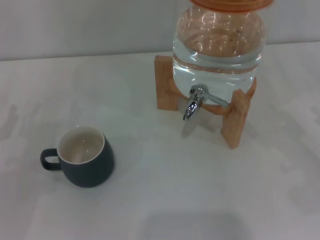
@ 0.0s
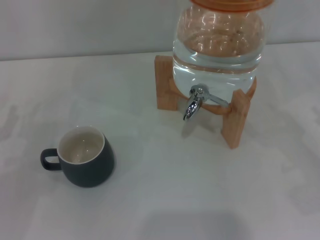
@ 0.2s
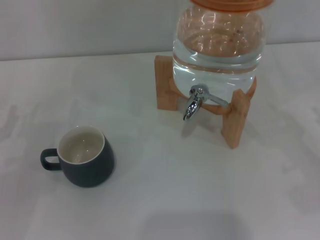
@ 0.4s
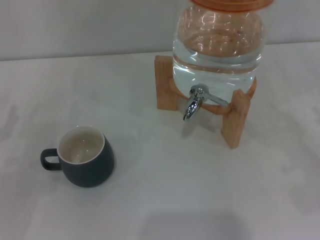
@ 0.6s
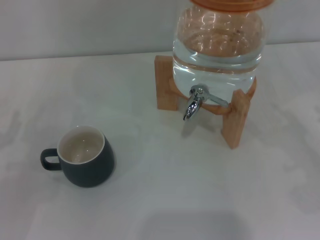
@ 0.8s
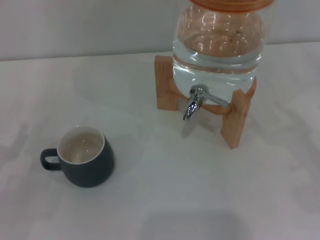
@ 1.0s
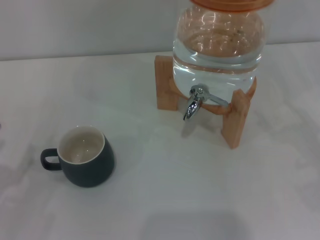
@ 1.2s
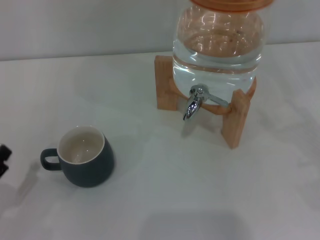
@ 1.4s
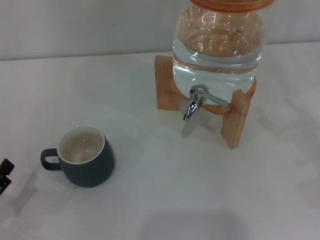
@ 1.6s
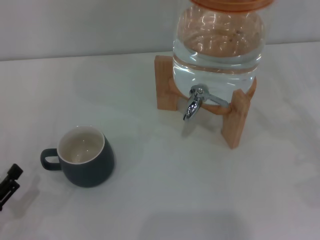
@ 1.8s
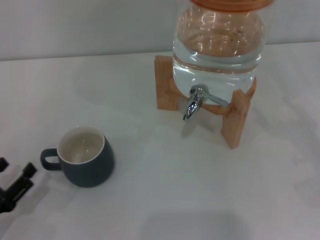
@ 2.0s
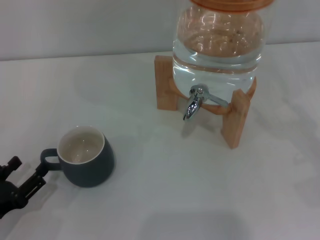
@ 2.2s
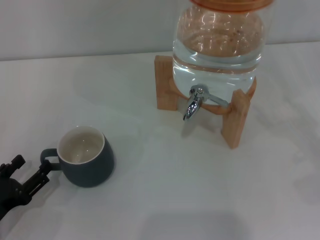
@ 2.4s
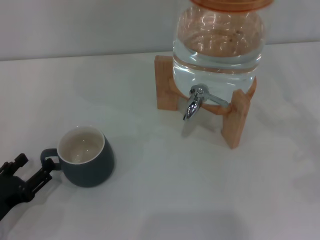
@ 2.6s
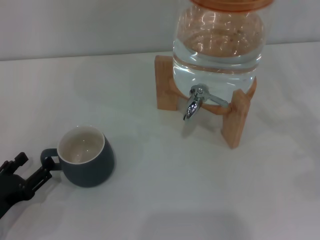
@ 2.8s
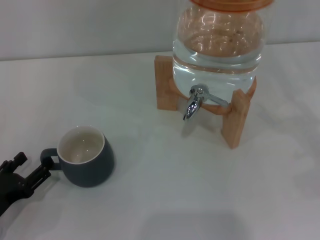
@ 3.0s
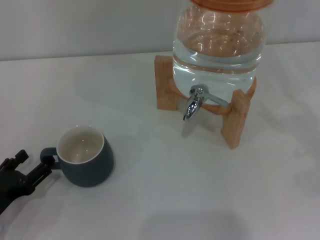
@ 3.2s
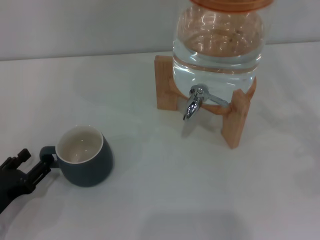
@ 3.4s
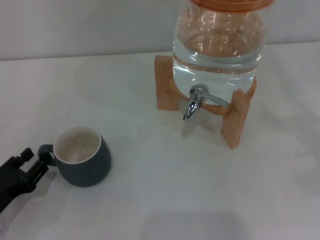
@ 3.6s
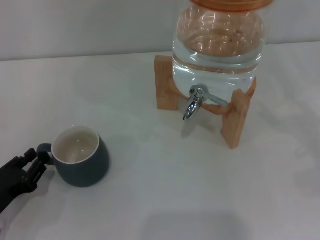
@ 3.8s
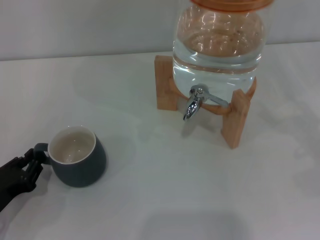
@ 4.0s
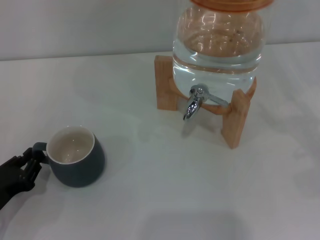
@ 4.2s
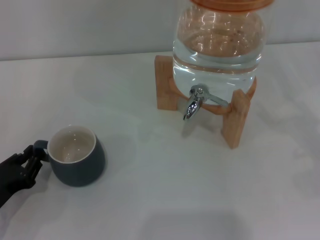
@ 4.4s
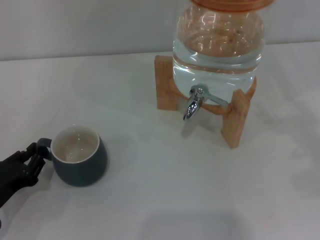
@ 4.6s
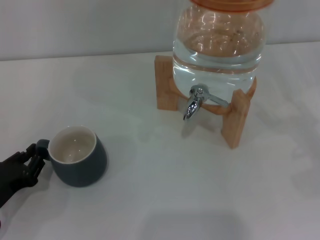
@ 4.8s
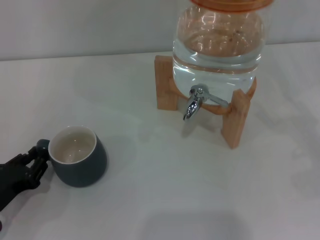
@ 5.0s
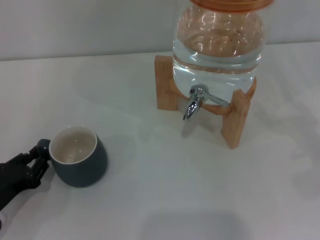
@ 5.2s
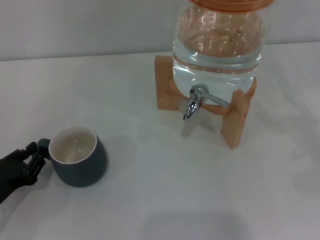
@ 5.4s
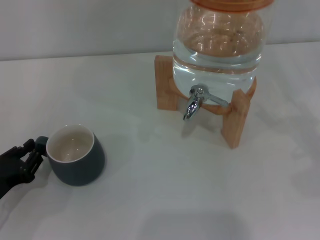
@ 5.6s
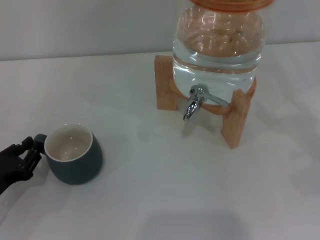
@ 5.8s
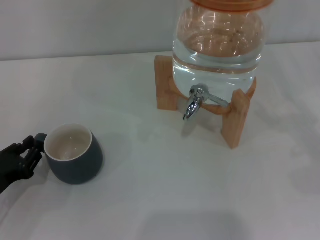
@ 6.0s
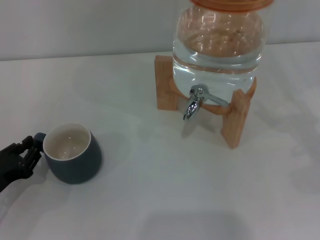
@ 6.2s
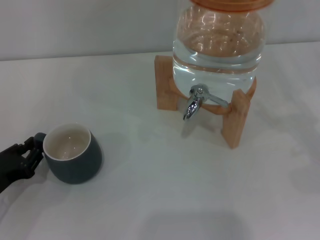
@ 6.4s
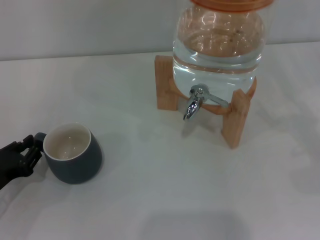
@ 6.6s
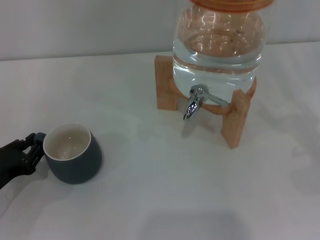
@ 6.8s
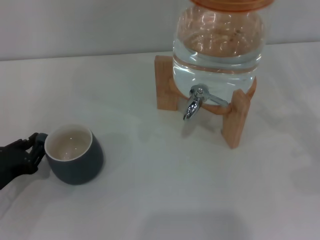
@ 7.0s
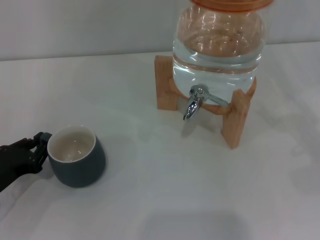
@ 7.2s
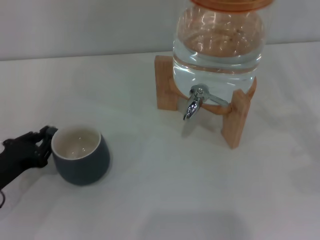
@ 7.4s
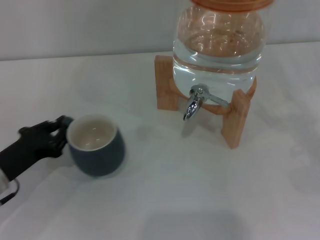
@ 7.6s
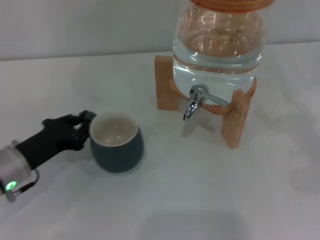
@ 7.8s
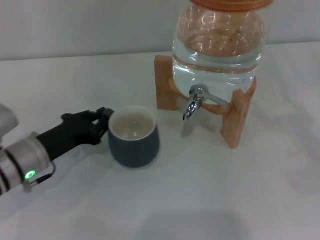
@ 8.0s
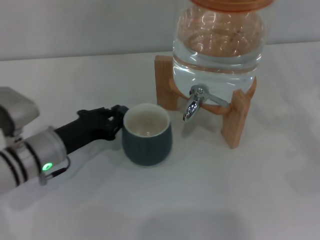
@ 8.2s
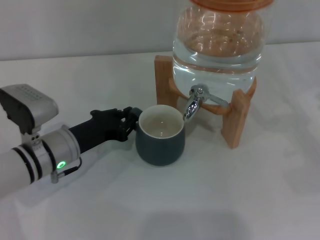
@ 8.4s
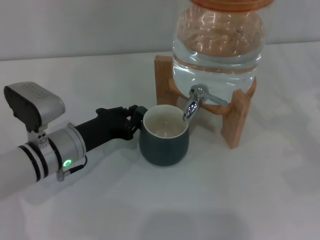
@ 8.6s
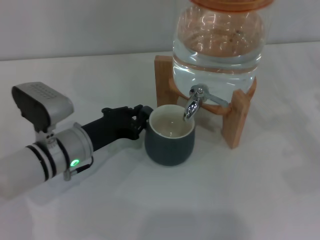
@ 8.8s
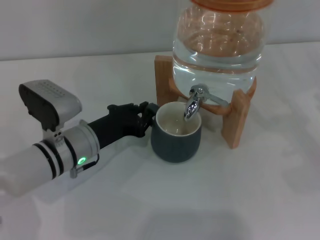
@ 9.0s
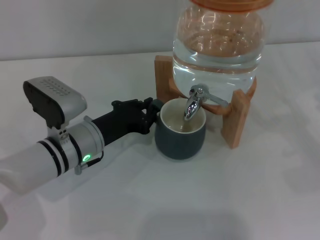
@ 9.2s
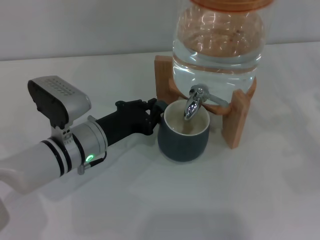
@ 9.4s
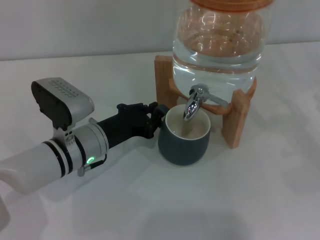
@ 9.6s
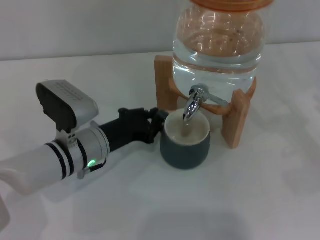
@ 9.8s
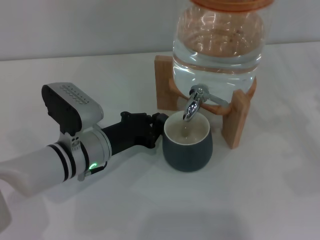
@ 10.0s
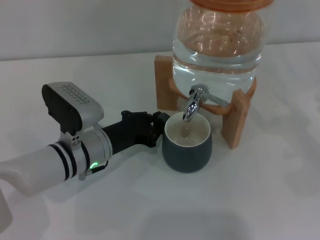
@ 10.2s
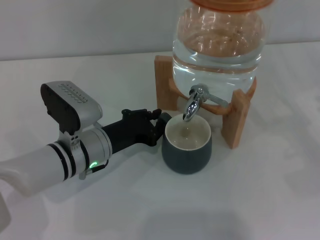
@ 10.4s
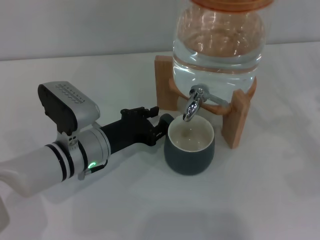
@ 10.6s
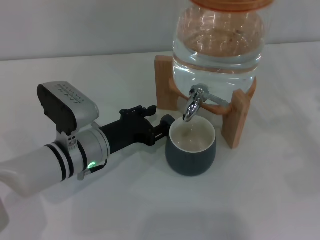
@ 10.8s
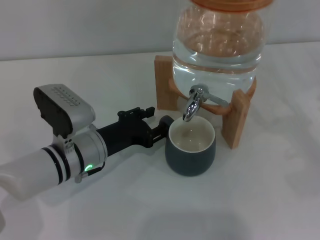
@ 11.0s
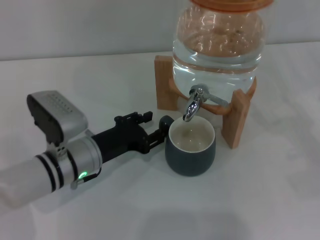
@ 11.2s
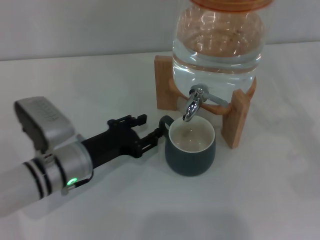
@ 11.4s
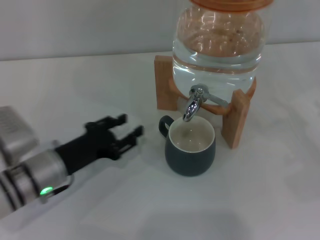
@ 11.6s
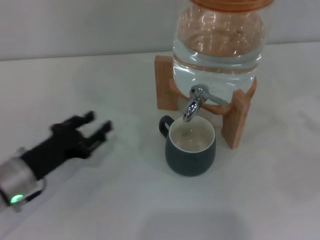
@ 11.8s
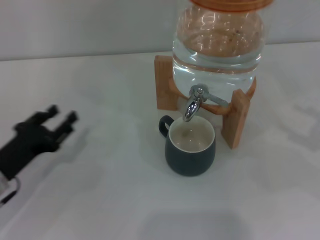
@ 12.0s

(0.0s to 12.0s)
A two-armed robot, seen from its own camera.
Task of the whole recording: the left gripper pick up the black cup and place it horizontally under the faucet, the right gripper turn on the faucet to fill the cup, and then turn off the faucet.
Step, 0.0s - 11.4s: Move the cup beneath the water dispenser nozzle with the left gripper.
1.6s - 3.0s: The left gripper moves some 5 cm.
3.0s - 4.4s: The left gripper closes.
4.4s - 6.0s: The grippers move only a little.
6.0s - 7.6s: The left gripper moves about 5 cm.
7.6s - 9.0s: The left gripper is displaced to the right by some 15 cm.
9.0s - 10.4s: There are only small adjustments of the grippers.
10.4s - 12.0s: The left gripper moves to the left, roughly 15 cm, and opens.

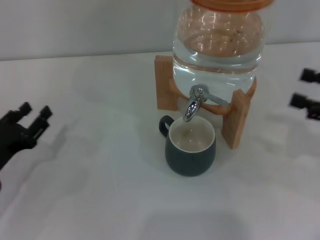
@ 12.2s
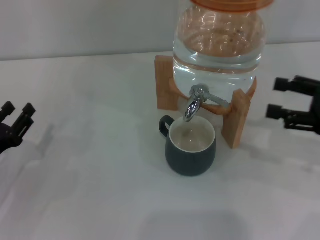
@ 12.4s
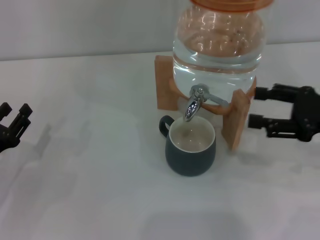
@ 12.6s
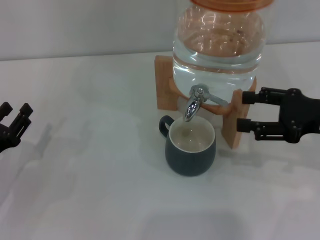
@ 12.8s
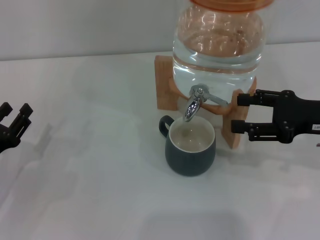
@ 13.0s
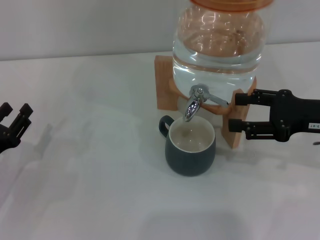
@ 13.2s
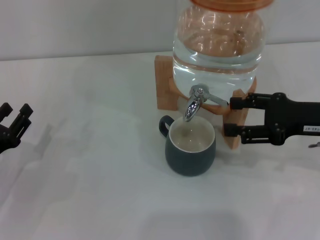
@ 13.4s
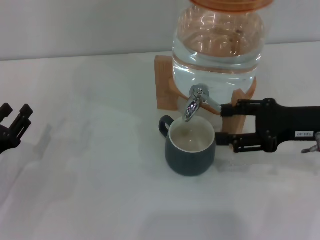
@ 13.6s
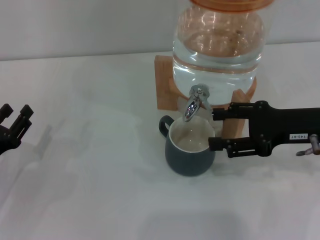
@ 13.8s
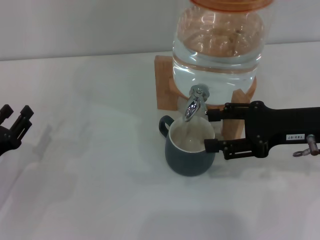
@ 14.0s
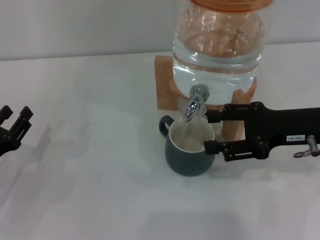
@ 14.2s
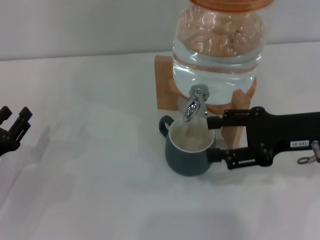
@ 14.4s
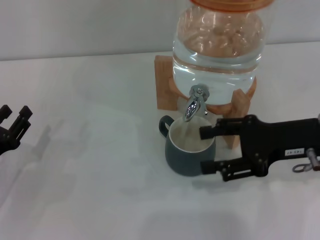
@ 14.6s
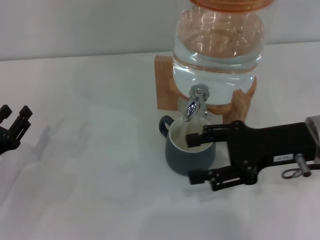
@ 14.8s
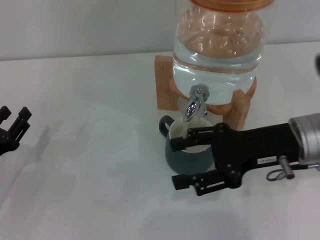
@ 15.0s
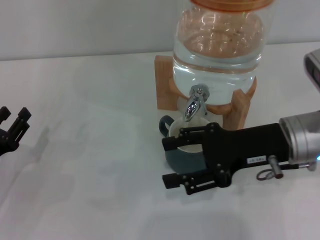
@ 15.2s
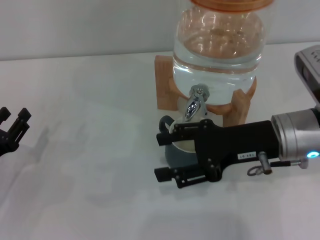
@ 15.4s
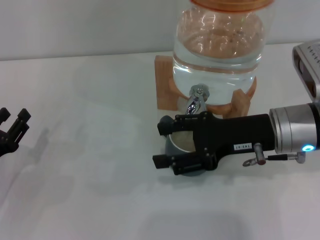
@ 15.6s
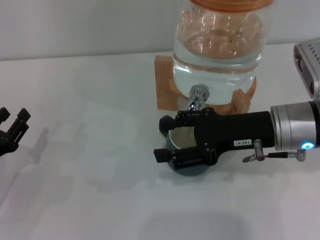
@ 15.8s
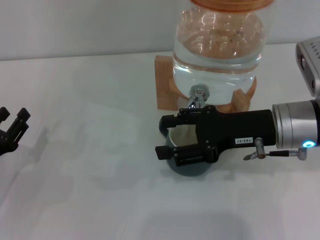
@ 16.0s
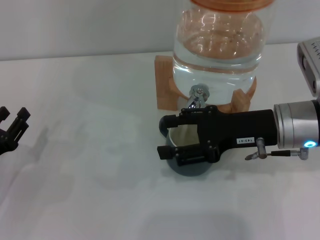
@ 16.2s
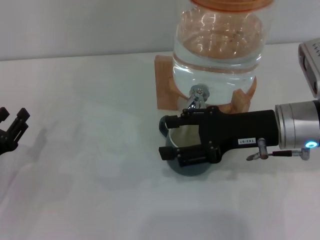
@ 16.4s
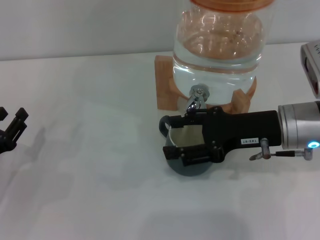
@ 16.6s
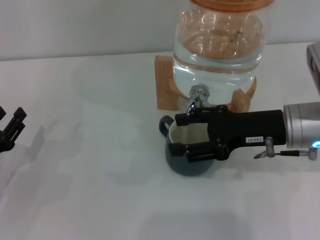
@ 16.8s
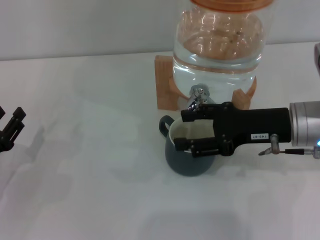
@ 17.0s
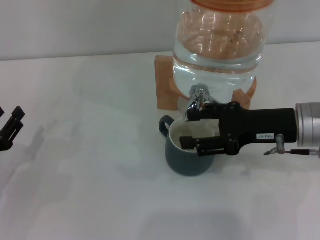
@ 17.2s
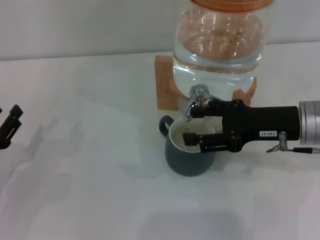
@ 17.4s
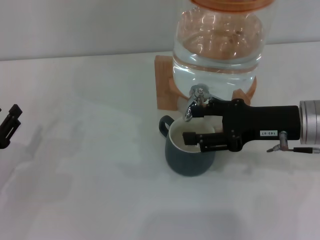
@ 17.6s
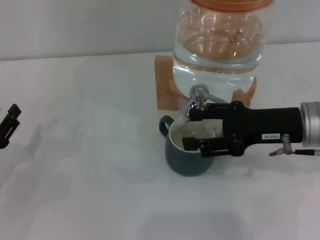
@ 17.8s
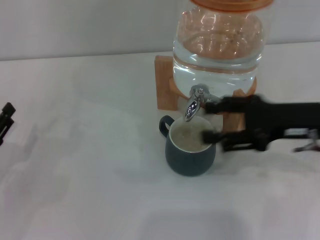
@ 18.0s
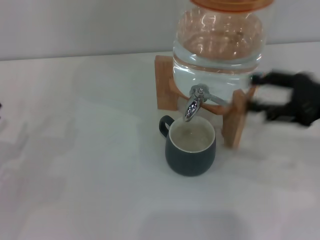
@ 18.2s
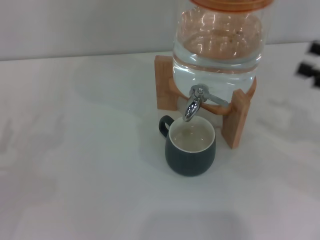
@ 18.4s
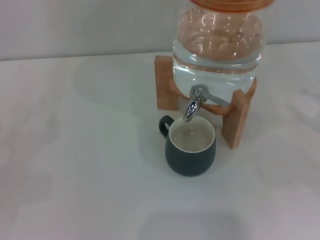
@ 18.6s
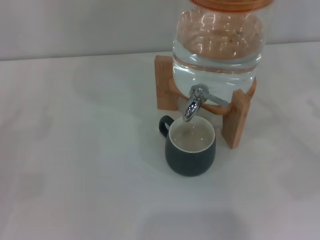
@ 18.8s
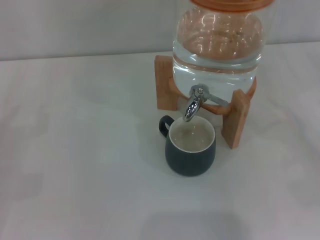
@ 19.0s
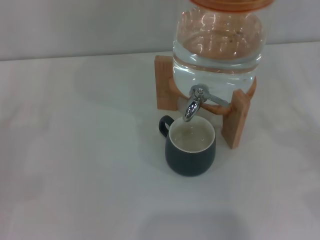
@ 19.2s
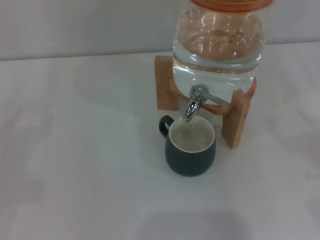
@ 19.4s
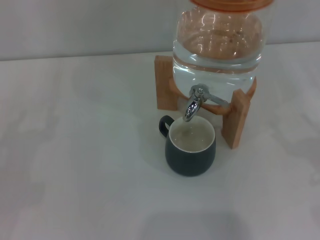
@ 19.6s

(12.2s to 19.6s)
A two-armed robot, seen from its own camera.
Task of the whole recording: the left gripper pick up the black cup and place it horizontally under the faucet, the right gripper turn on the faucet to fill the cup, and then turn off the faucet.
Step, 12.2s - 14.4s: Open the dispenser valve and fill the cup with water with the right gripper.
Step, 14.6s - 18.0s: Close the dispenser valve with the right gripper.
12.2s - 13.6s: The right gripper moves to the left, about 10 cm.
13.6s - 15.2s: The right gripper heads to the left, covering some 10 cm.
15.2s - 16.6s: The grippers make only small movements.
16.6s - 18.2s: The right gripper moves to the right, about 10 cm.
18.2s - 19.6s: The right gripper shifts about 15 cm to the right, backward and downward.
